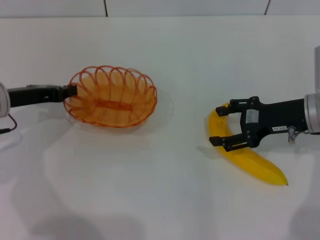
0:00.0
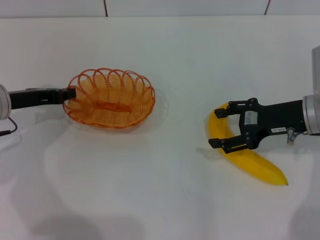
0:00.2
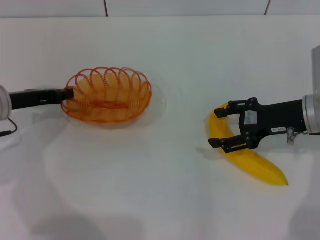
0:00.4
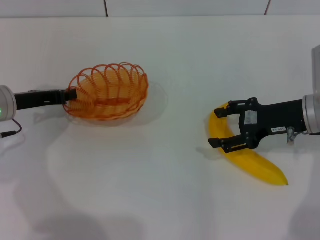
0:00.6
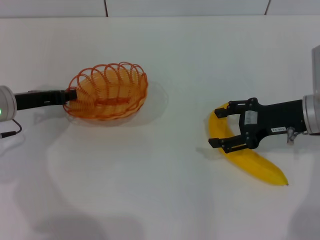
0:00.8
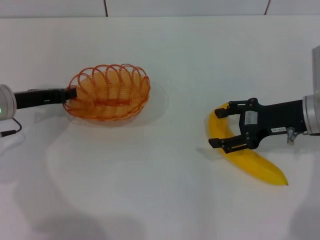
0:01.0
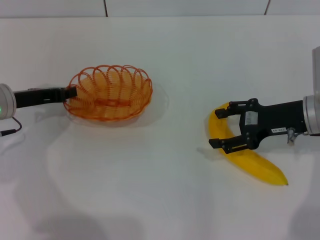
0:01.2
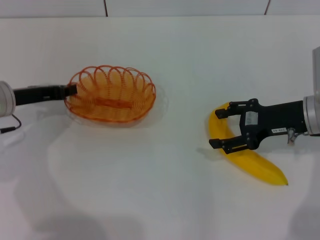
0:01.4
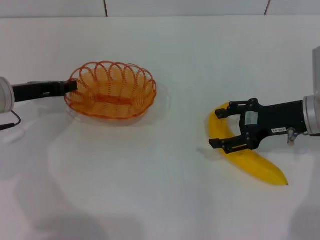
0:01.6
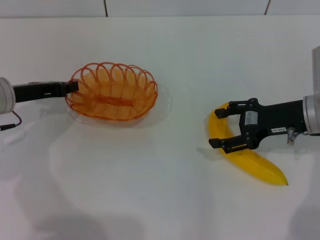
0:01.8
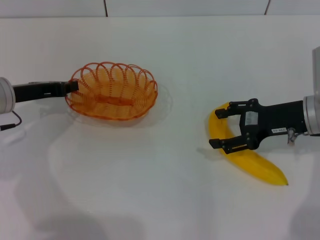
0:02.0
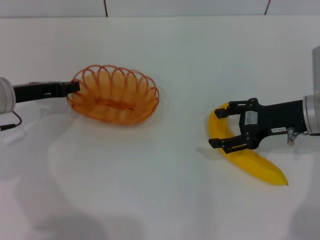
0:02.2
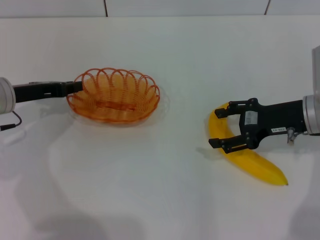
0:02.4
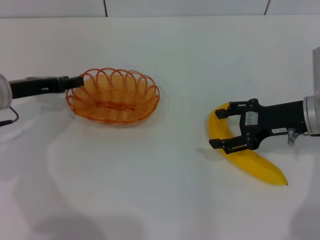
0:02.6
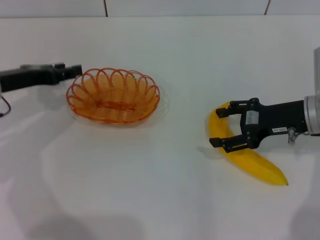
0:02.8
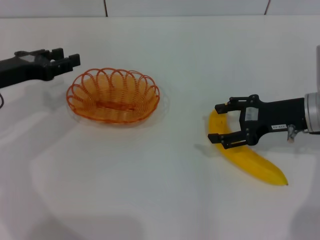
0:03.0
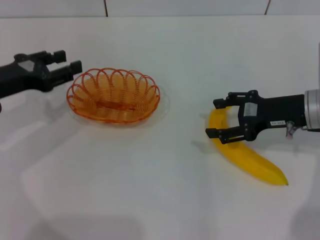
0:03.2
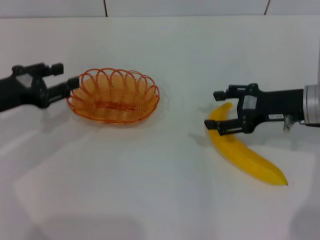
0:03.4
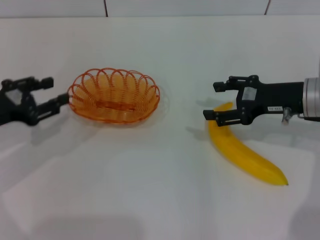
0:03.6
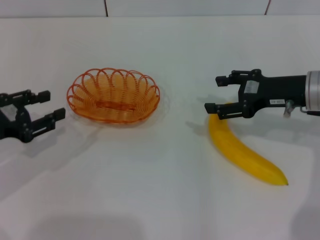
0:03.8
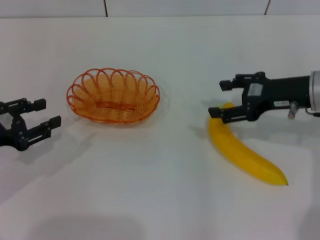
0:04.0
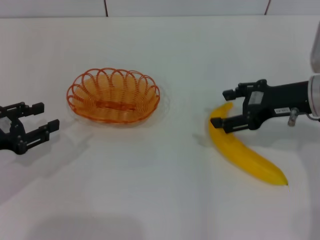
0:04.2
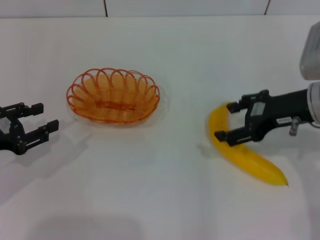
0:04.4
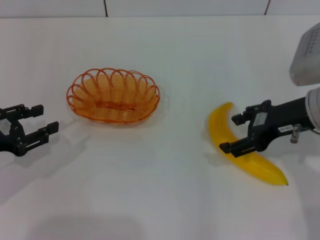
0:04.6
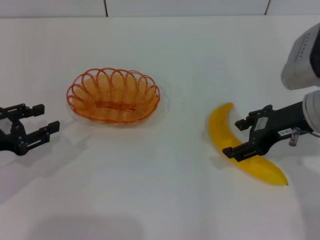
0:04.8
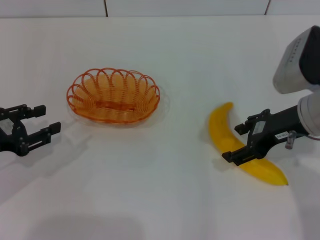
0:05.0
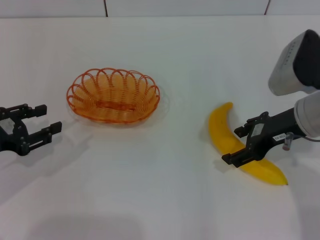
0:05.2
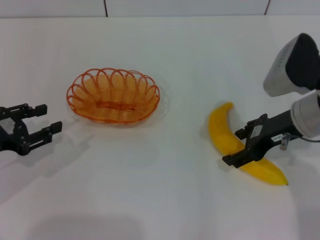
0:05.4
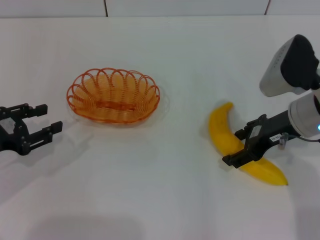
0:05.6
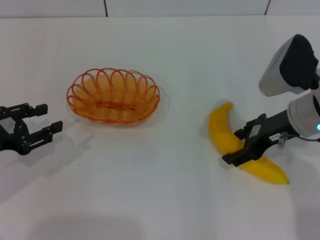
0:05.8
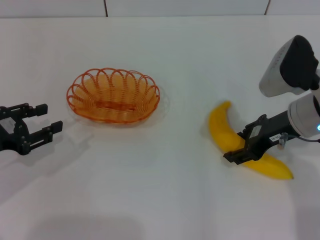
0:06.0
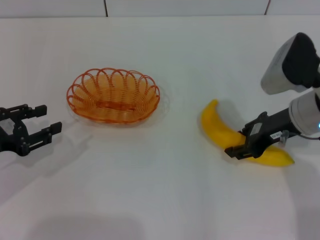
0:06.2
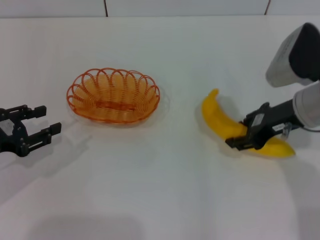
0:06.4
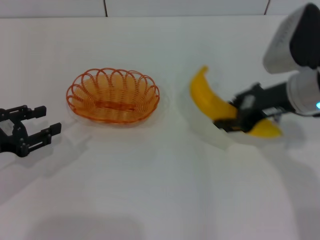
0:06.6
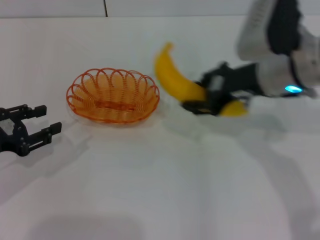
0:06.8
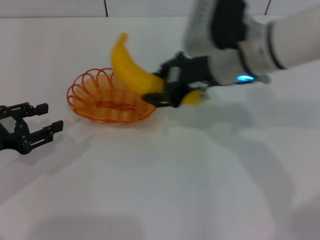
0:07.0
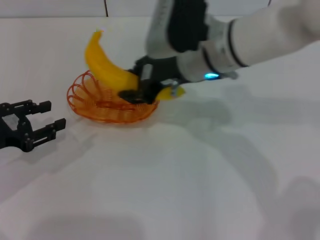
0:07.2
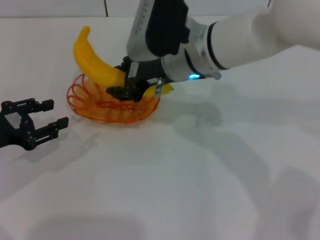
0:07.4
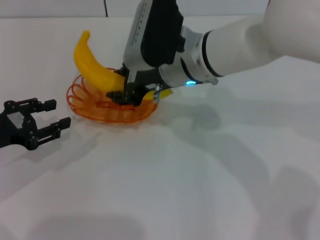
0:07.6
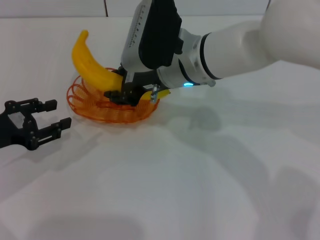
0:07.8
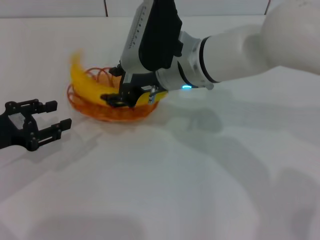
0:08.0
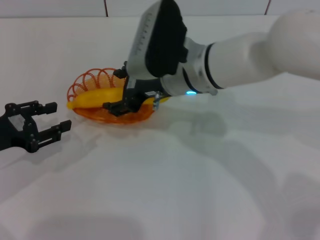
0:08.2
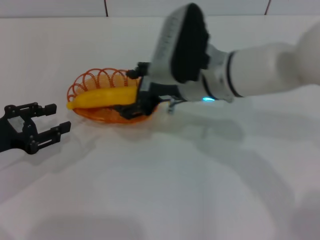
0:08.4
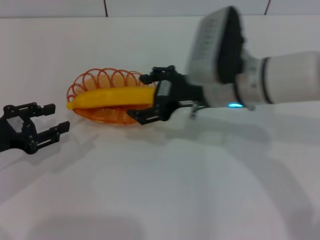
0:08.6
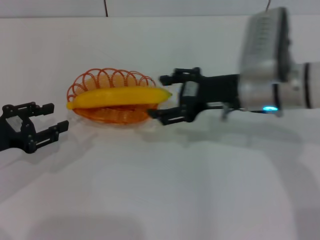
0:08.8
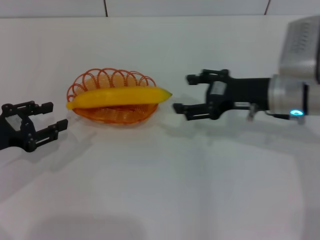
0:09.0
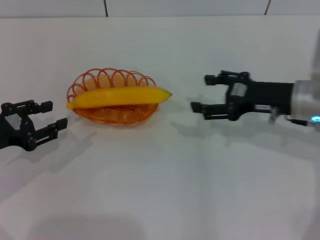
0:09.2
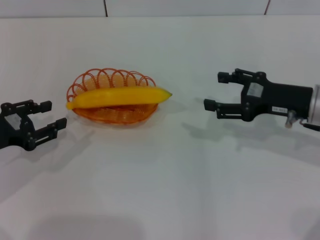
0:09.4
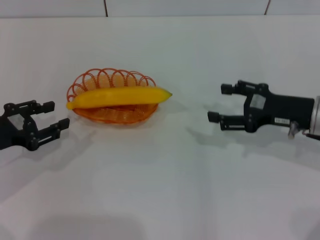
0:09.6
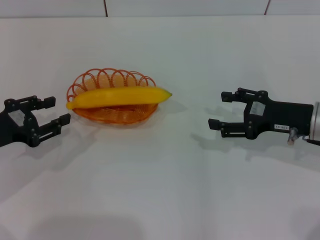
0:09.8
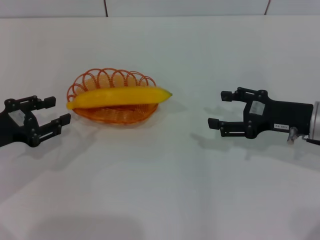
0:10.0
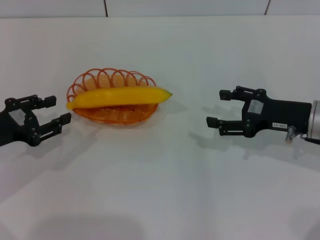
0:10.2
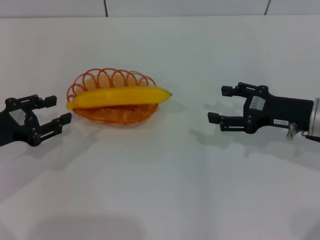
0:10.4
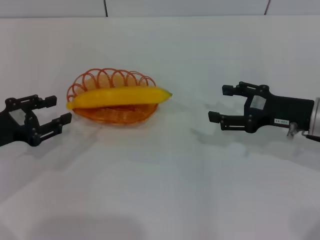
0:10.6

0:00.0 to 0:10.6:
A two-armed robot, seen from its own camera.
Step, 0:00.0 to 0:02.8: Place the basket in the center of view with the left gripper.
Step, 0:03.0 to 0:06.8: Pick up the banana with the right gripper.
Step, 0:07.0 to 0:09.0: Place the banana into the basket with the right gripper.
0:00.0 to 0:01.6: There are only small adjustments of the grippers.
0:01.6 to 0:03.0: The left gripper opens its fingers.
0:03.0 to 0:04.6: The left gripper is displaced backward by approximately 10 cm, while the right gripper is displaced upward by approximately 5 cm.
0:04.6 to 0:06.0: The grippers make only small movements.
0:06.0 to 0:07.6: The right gripper goes about 15 cm to the left, and closes its fingers.
0:07.6 to 0:09.0: The right gripper is displaced to the right by roughly 15 cm, and opens.
0:09.0 to 0:10.6: The right gripper moves to the right, about 5 cm.
